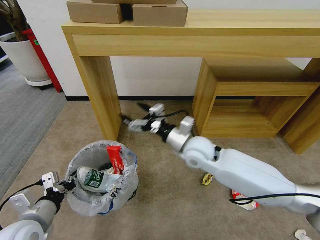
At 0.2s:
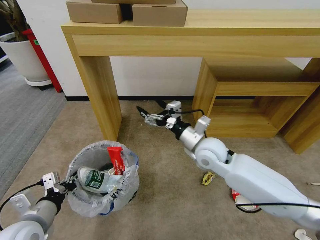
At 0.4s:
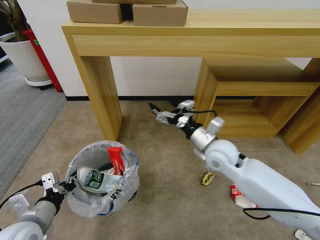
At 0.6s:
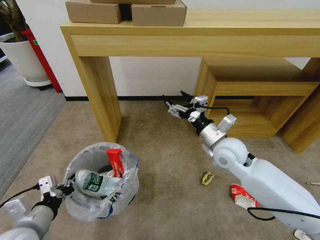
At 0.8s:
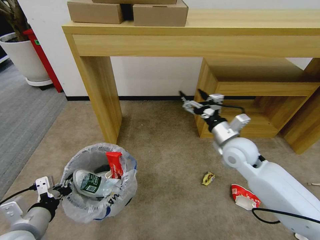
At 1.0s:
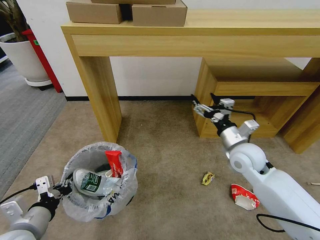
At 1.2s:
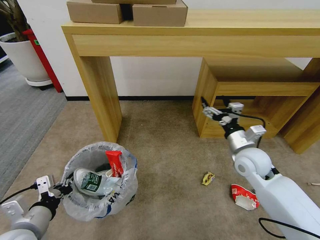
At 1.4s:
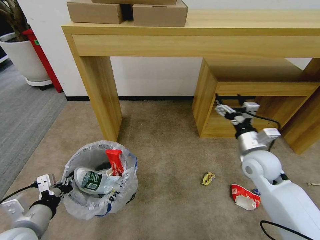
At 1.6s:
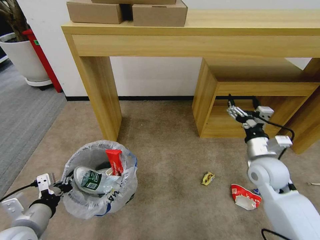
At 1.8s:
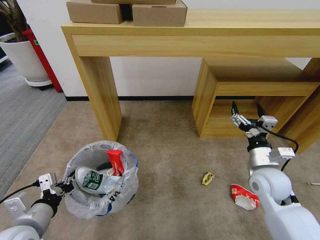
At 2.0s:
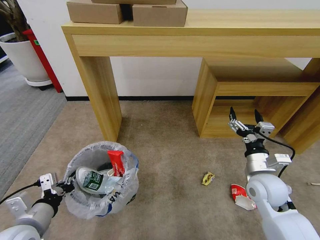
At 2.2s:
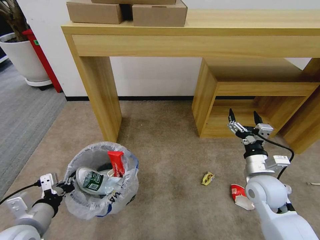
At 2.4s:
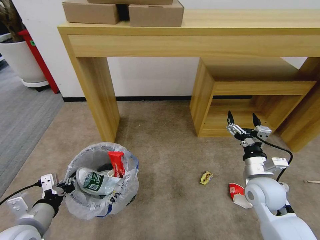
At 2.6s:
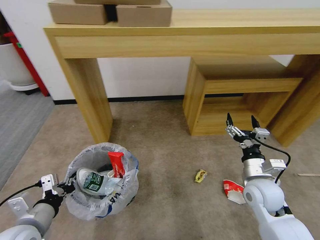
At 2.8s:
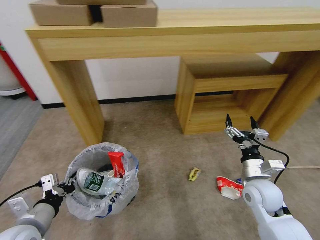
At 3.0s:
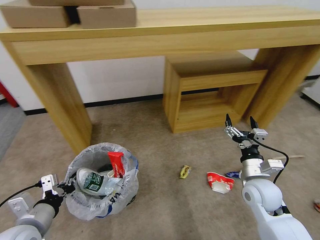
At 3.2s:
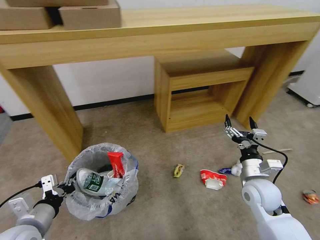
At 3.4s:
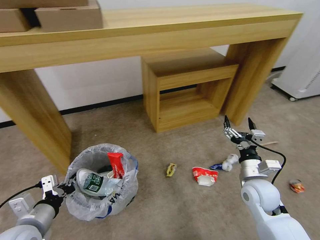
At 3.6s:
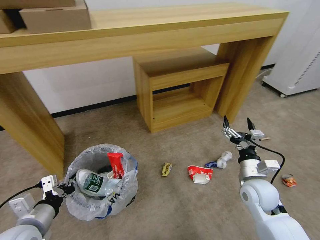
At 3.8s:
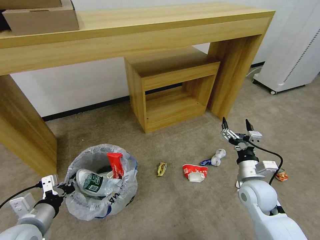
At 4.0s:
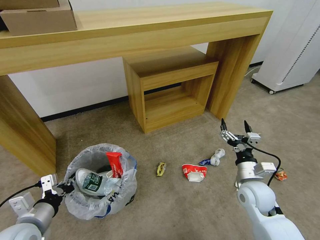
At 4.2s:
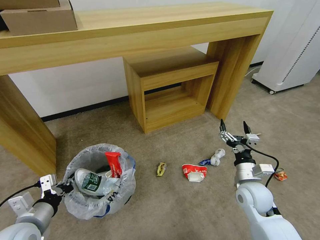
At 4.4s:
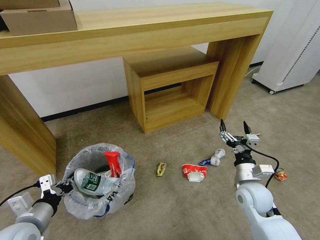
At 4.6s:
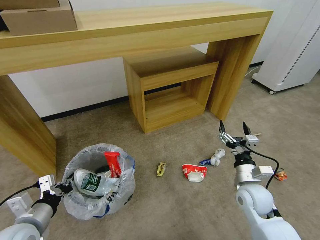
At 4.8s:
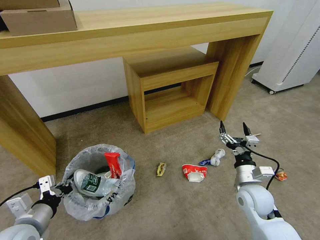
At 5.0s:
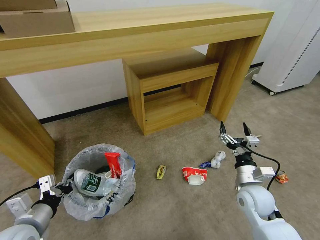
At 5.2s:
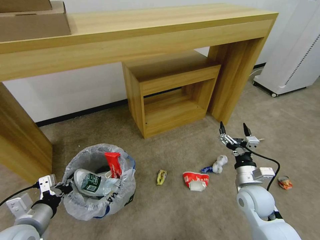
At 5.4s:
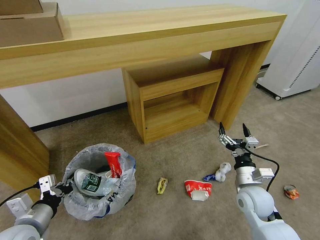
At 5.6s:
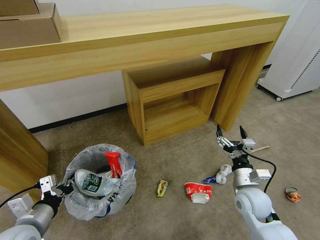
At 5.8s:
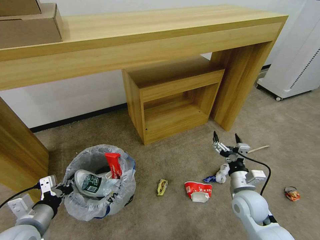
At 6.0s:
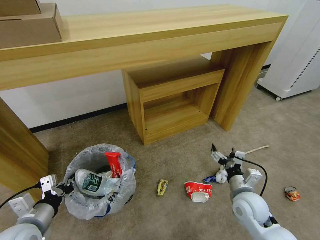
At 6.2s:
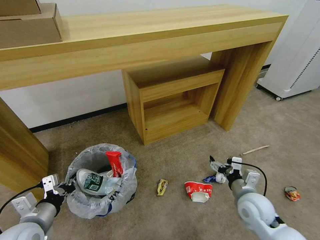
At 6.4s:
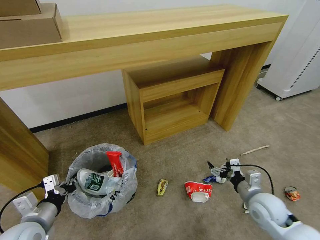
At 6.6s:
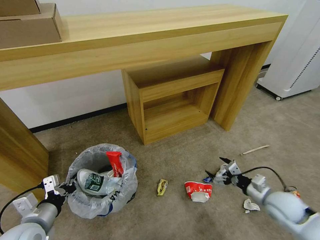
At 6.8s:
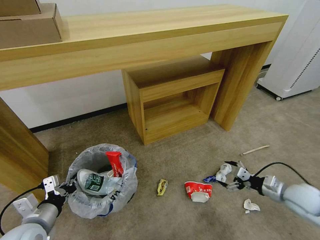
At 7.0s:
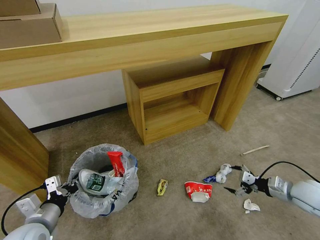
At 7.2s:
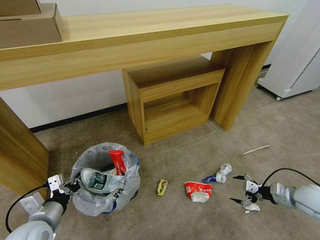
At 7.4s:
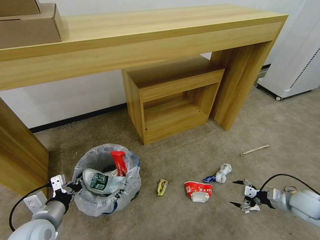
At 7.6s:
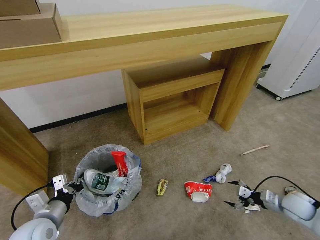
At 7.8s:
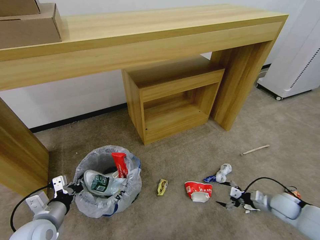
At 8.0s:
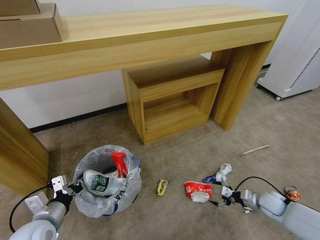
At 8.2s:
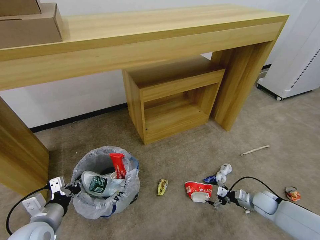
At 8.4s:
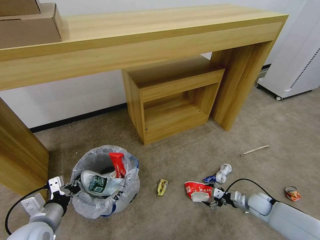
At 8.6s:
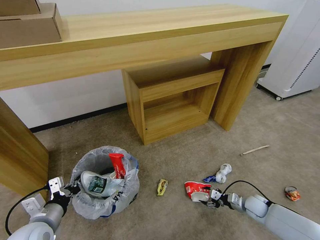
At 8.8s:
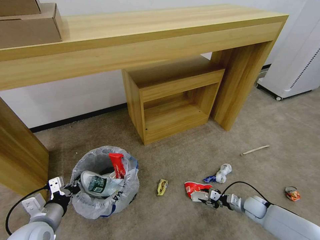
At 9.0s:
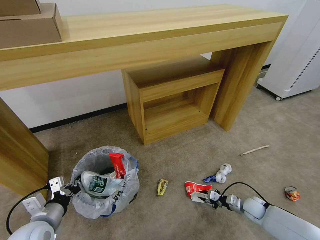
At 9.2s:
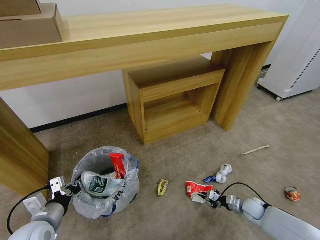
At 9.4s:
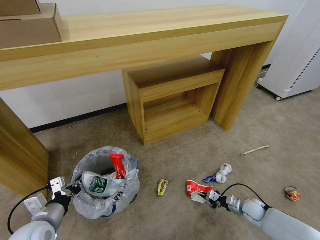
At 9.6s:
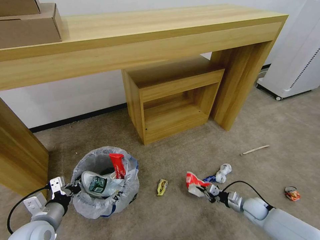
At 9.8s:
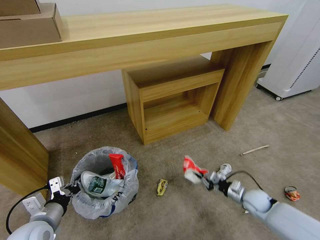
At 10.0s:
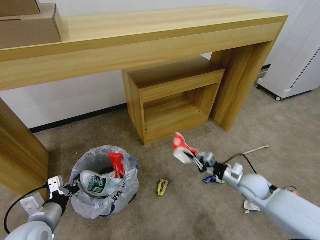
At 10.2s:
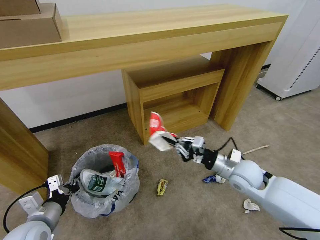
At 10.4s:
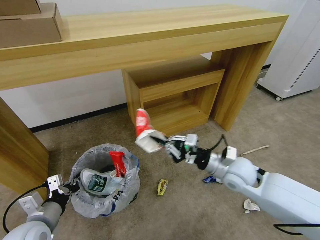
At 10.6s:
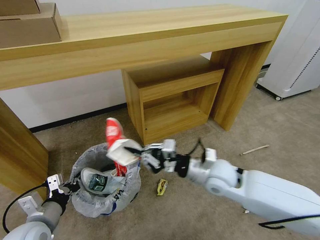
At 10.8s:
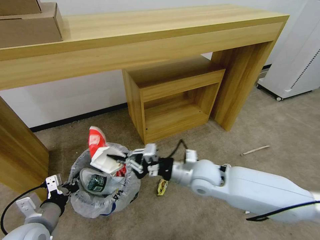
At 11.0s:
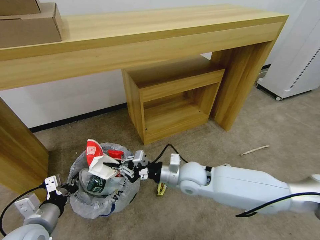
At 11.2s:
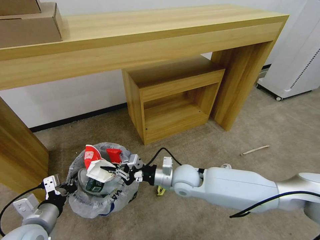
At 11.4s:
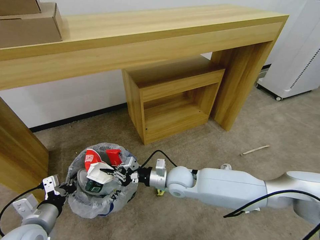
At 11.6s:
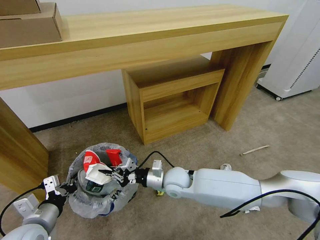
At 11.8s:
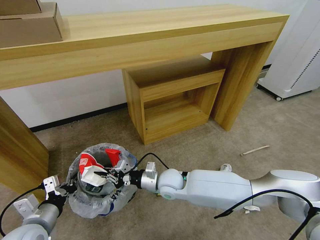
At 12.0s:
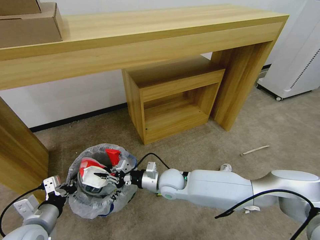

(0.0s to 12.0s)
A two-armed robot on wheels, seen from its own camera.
Task of the whole recording: Pick up the trash bin and place the garbage on the floor into it.
0.0s - 1.6s: The right gripper shifts approximately 20 cm to the right.
1.6s - 3.0s: The right gripper travels downward by roughly 5 cm.
6.0s - 7.6s: The right gripper heads to the right, covering about 20 cm.
7.6s - 9.0s: The right gripper goes about 15 cm downward and to the left, and closes.
9.0s - 10.4s: The right gripper heads upward and to the left, covering about 35 cm.
10.4s - 12.0s: The right gripper heads to the left and downward, covering some 20 cm.

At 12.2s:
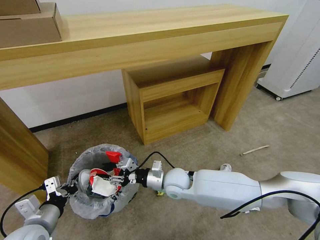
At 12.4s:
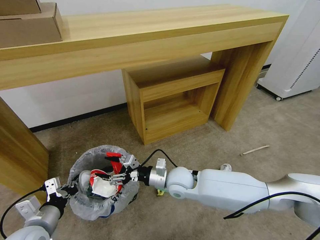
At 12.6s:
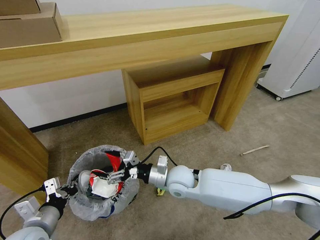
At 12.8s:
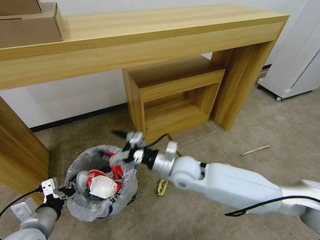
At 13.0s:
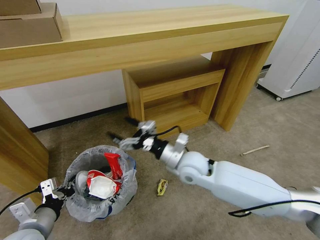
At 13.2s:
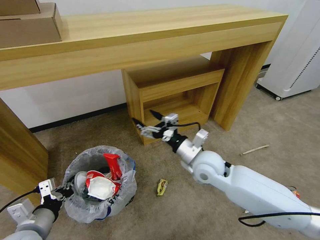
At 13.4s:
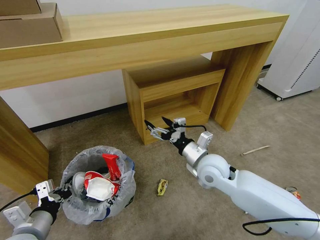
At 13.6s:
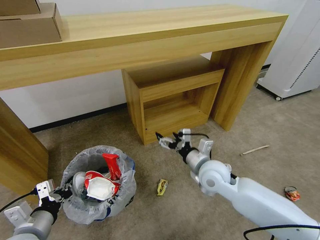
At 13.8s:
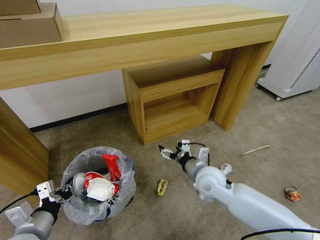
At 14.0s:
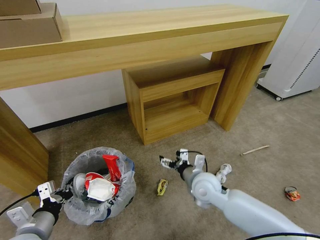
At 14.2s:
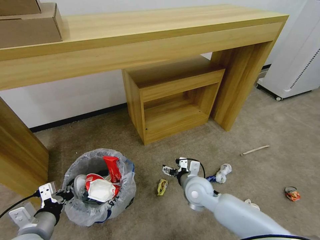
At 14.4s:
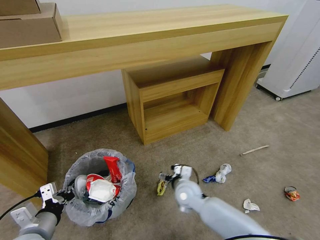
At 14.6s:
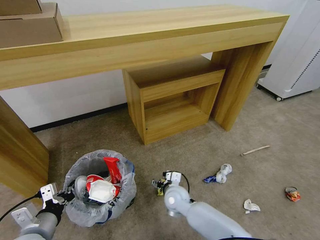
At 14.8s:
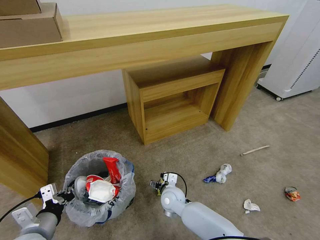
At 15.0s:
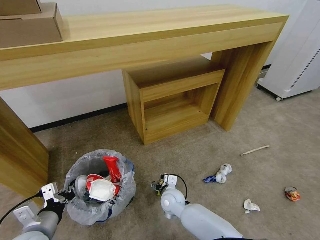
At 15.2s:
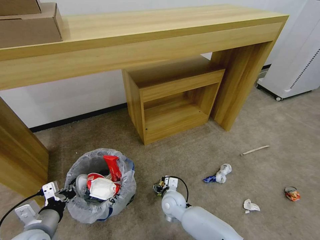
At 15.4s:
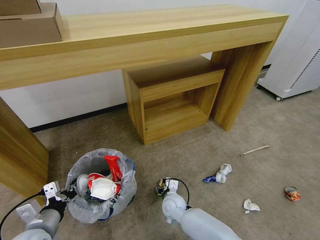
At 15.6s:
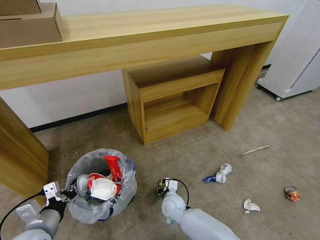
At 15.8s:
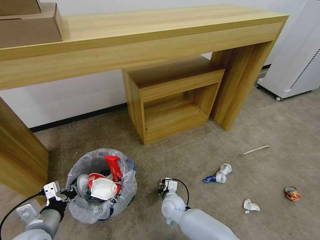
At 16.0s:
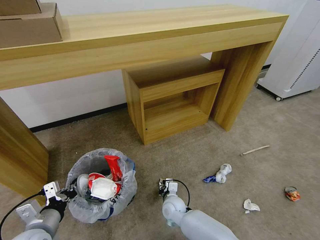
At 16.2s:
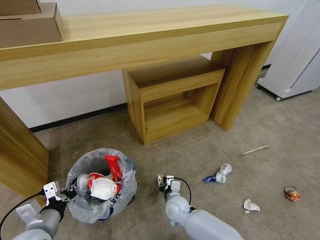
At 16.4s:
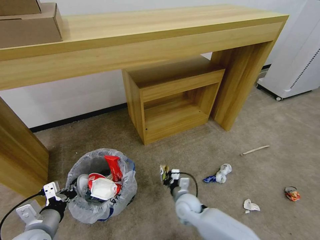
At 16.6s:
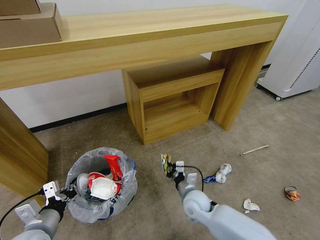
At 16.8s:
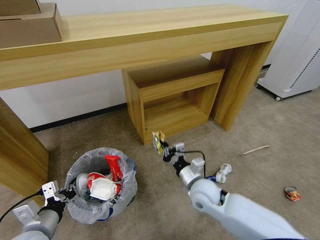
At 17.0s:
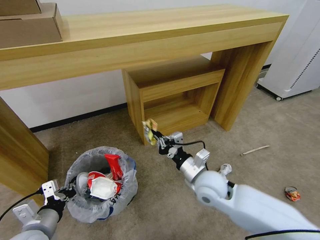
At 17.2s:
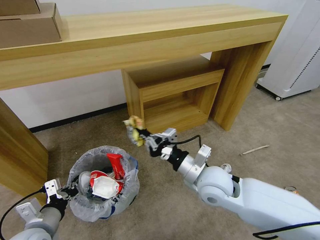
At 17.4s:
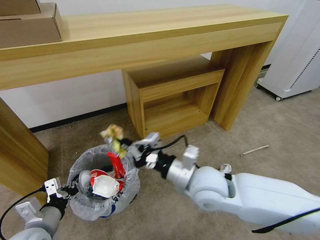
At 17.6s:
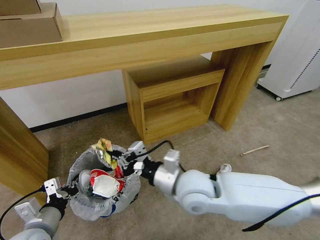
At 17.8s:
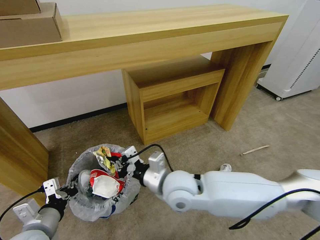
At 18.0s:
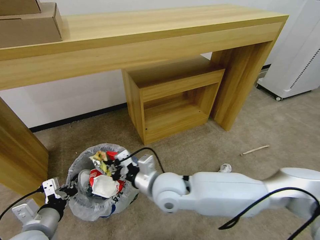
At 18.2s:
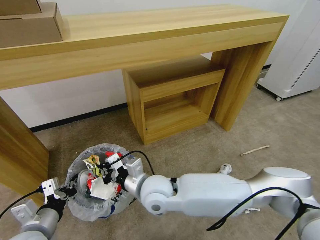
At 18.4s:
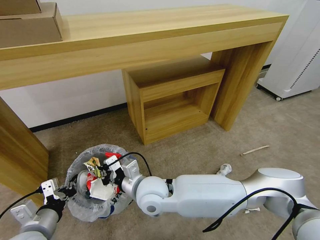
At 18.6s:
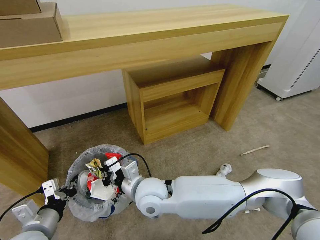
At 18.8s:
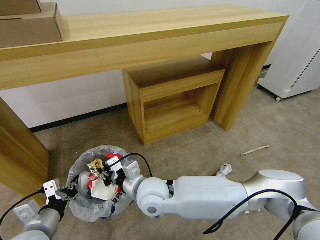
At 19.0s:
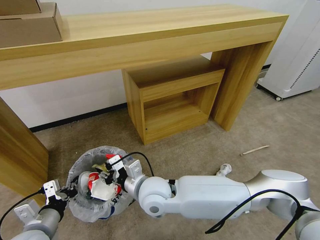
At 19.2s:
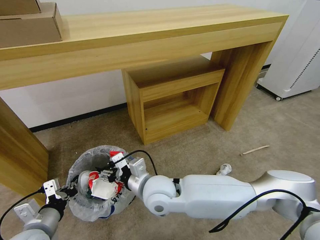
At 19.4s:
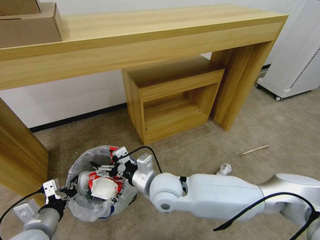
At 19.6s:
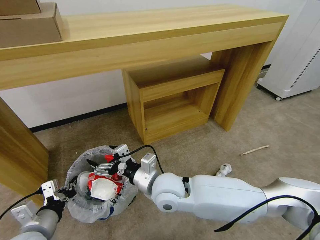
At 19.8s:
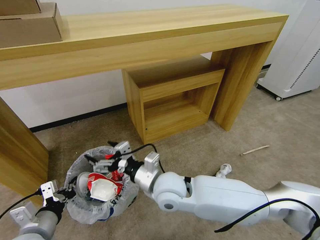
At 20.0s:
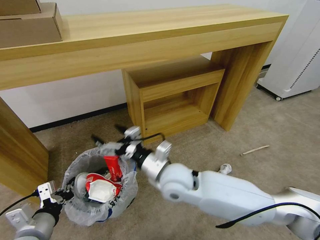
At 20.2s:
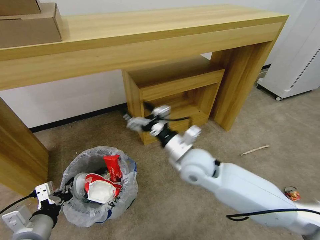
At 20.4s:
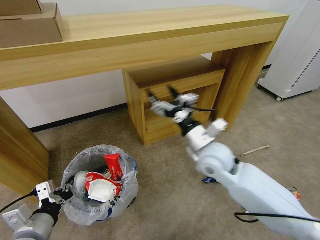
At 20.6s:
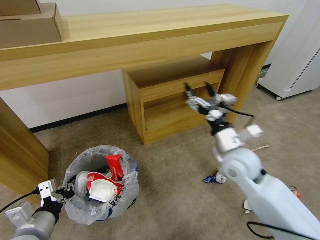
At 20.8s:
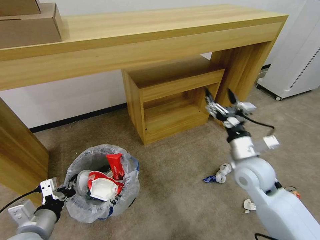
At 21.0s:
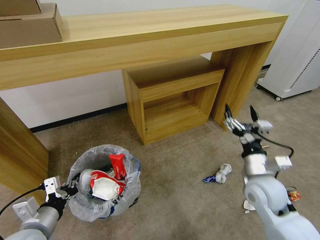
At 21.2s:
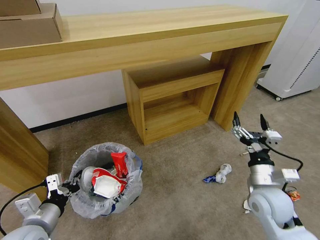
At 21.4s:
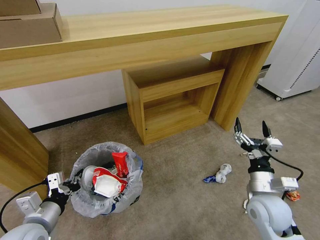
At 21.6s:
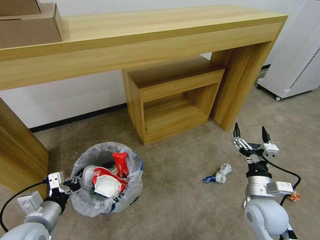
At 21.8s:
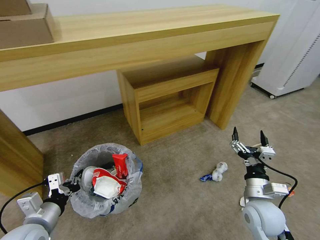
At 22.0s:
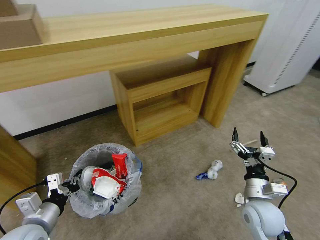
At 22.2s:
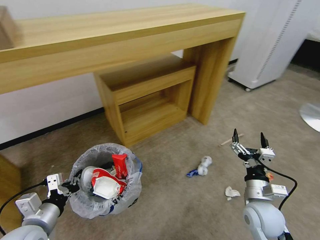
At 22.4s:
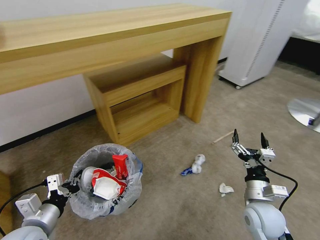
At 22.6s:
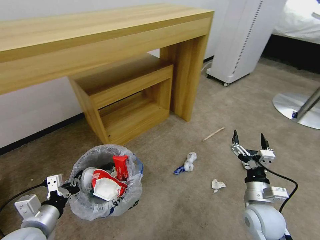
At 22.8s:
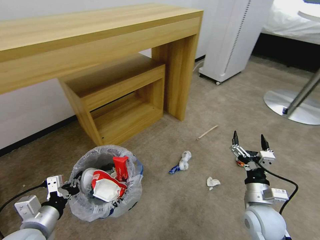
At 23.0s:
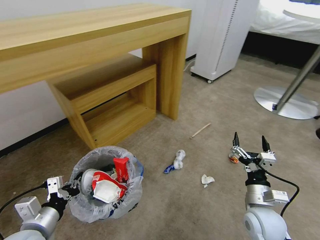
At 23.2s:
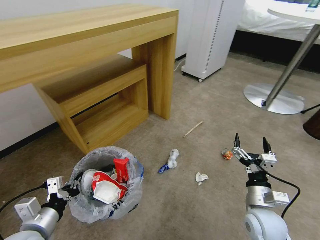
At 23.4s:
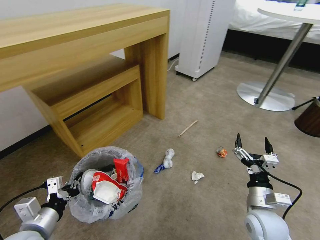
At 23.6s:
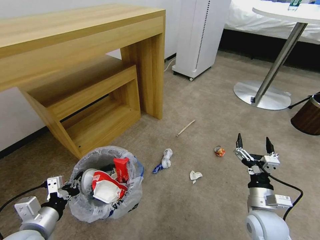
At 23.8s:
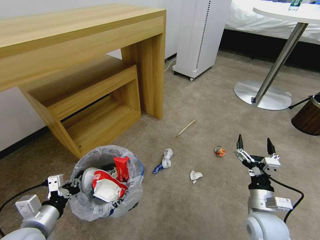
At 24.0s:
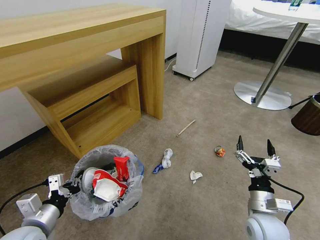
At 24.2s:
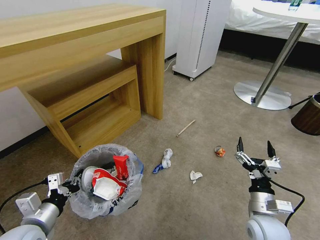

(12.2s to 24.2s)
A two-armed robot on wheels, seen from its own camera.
Task of the whole recording: Pick up the trash bin and place the garbage on the floor into it.
12.2s - 13.8s: The right gripper shifts about 10 cm to the right, and opens up.
13.8s - 15.2s: The right gripper travels downward and to the left by approximately 20 cm.
15.2s - 16.6s: The right gripper is displaced to the right and upward by some 10 cm, and closes up.
16.6s - 18.2s: The right gripper is displaced to the left and upward by roughly 20 cm.
18.2s - 19.8s: The right gripper opens its fingers.
19.8s - 21.2s: The right gripper heads to the right, covering approximately 30 cm.
21.2s - 22.6s: The right gripper travels downward by about 5 cm.
